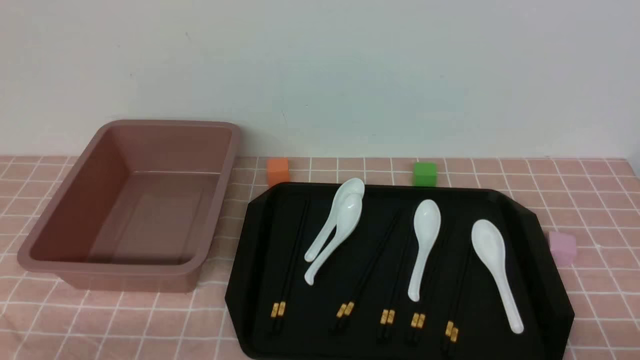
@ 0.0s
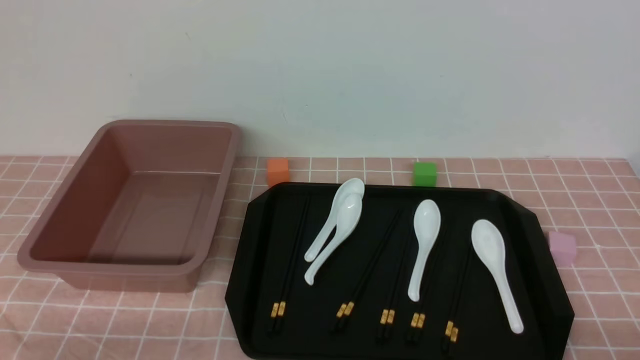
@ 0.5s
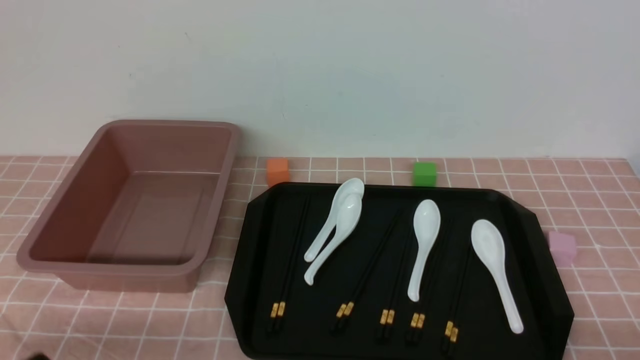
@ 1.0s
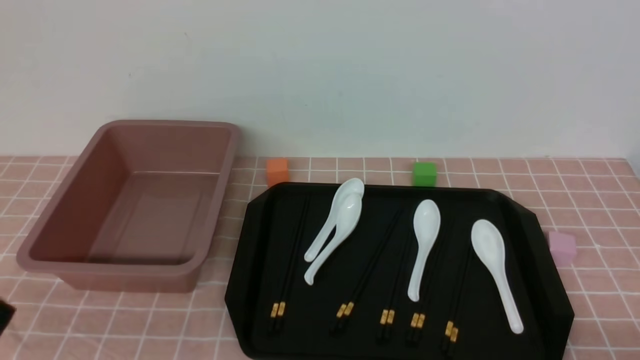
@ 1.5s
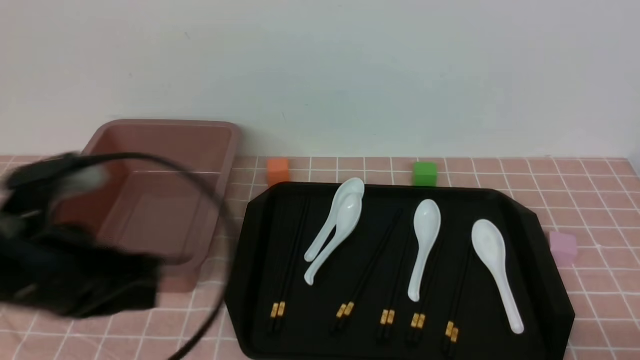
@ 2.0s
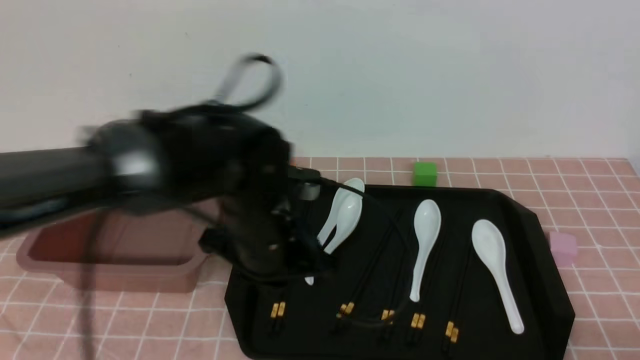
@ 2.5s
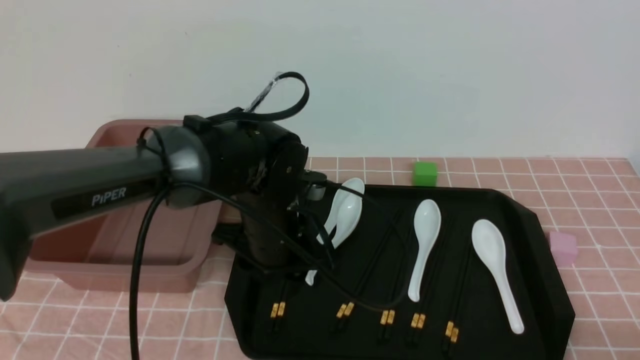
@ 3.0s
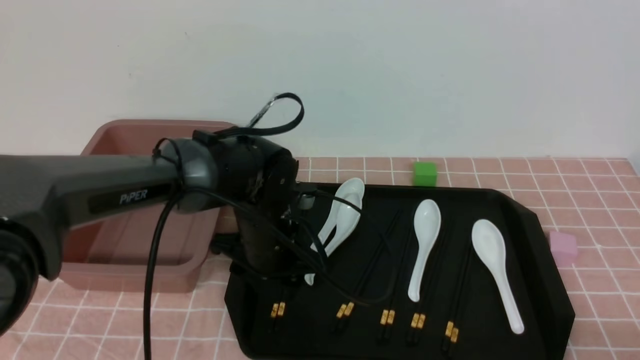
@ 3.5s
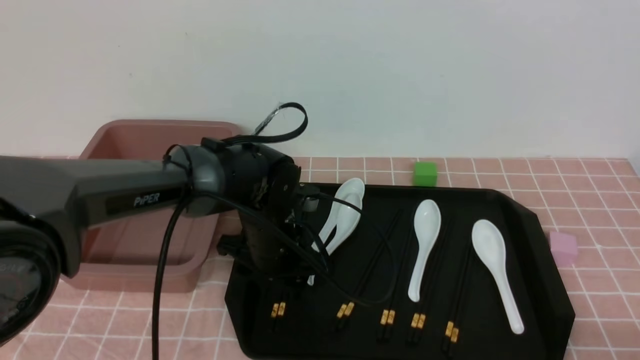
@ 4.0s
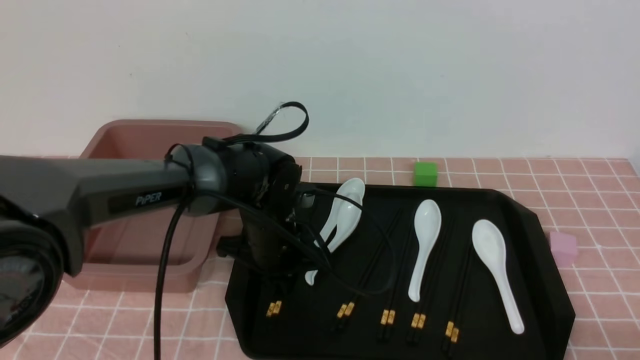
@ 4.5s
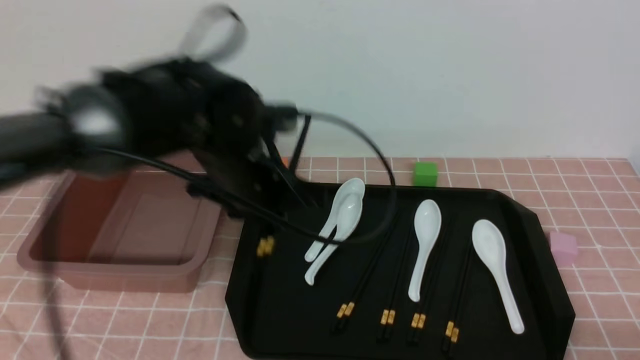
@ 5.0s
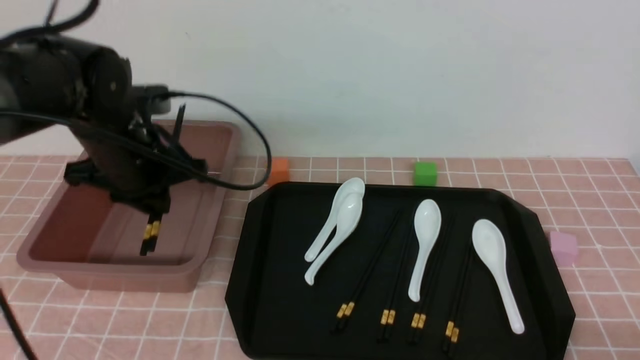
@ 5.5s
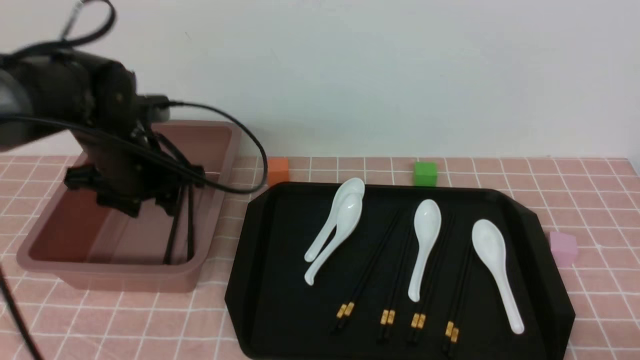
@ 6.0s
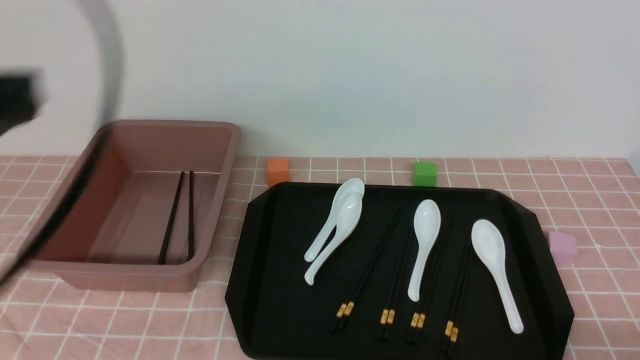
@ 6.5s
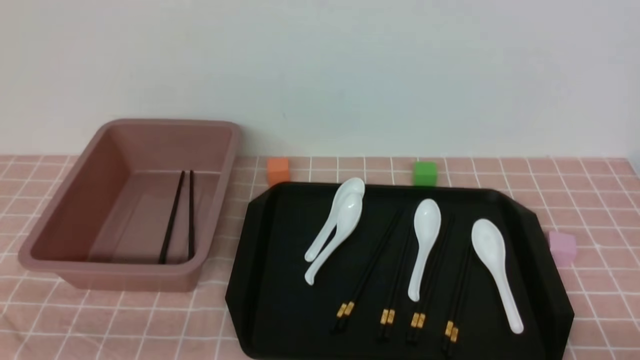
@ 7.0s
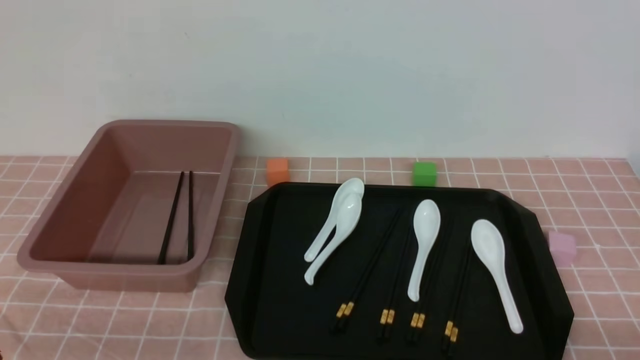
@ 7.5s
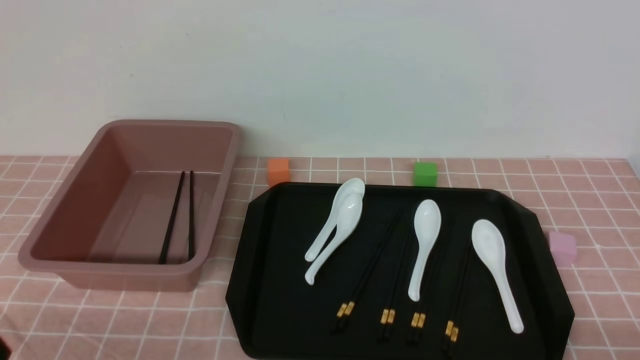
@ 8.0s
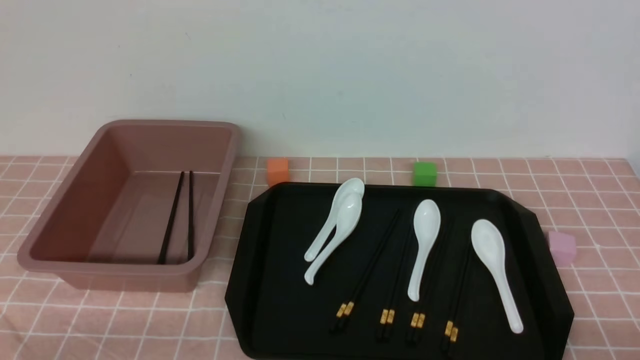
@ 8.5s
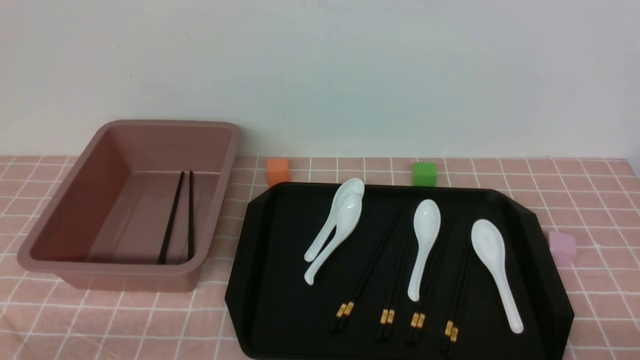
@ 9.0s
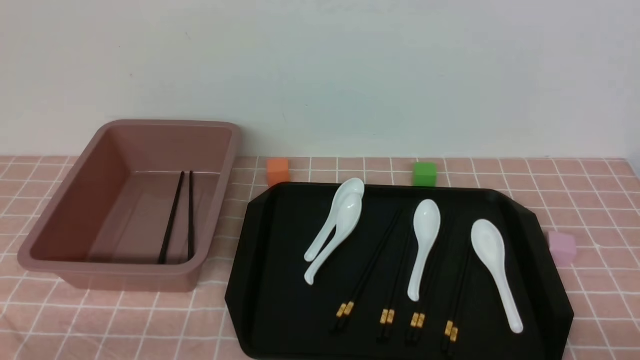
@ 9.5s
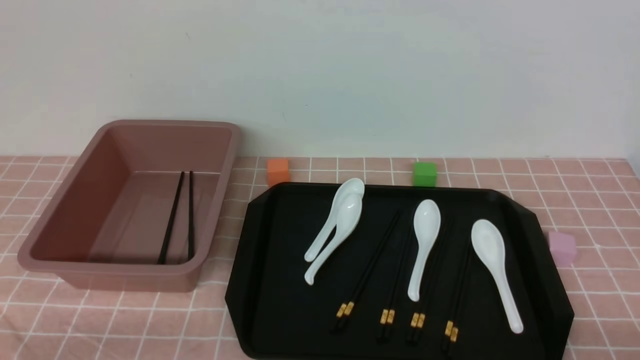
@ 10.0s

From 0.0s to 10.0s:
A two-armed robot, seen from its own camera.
Step, from 0.0s to 4.5s: use the left arm to grab a pair of chopsticks.
Step, from 5.5s to 6.0s: use the left arm to put the chopsticks into the lunch box.
From 0.0s to 2.0s: The left gripper goes approximately 20 cm forward, upward and to the right, and closes its fingers.
From 2.0s to 4.0s: The left gripper shifts approximately 25 cm forward, to the right and downward, and opens.
From 4.0s to 6.0s: The left gripper moves to the left and upward, approximately 20 cm, and closes, then reopens.
From 6.0s to 8.0s: The left gripper goes about 30 cm backward, and closes up.
